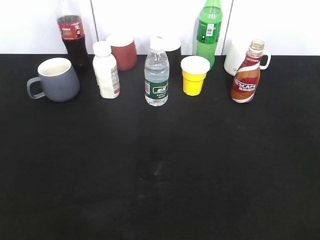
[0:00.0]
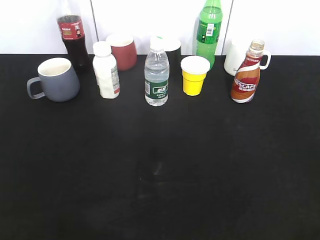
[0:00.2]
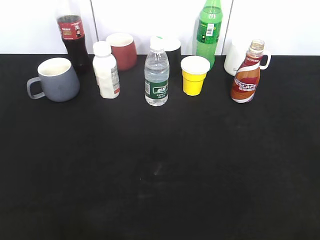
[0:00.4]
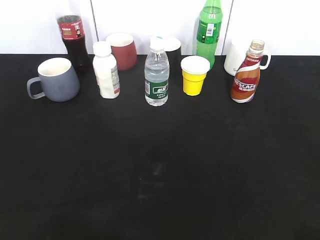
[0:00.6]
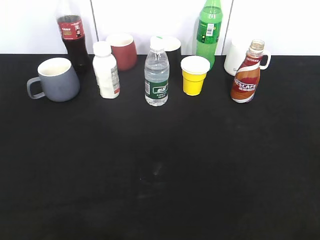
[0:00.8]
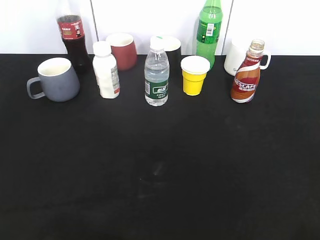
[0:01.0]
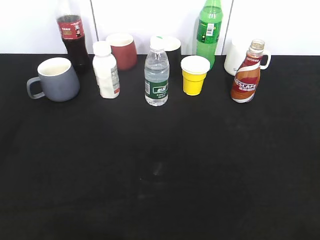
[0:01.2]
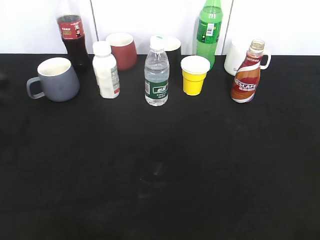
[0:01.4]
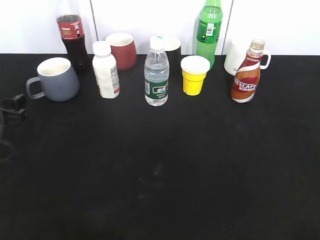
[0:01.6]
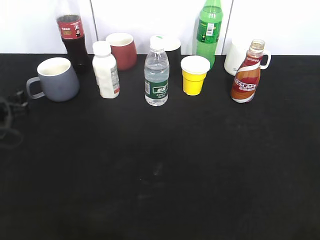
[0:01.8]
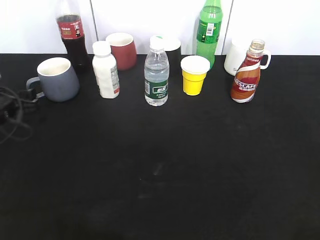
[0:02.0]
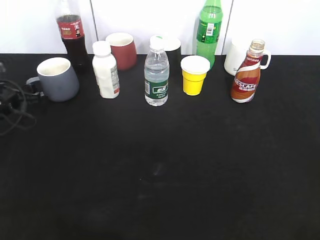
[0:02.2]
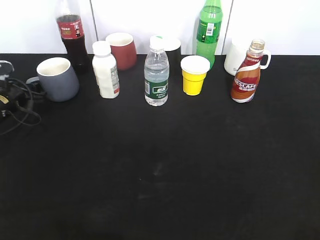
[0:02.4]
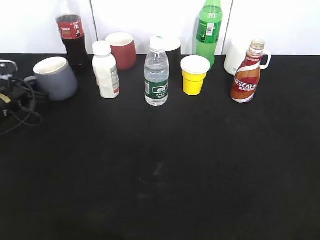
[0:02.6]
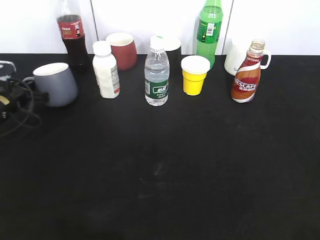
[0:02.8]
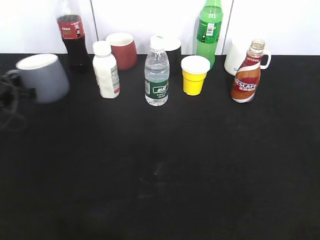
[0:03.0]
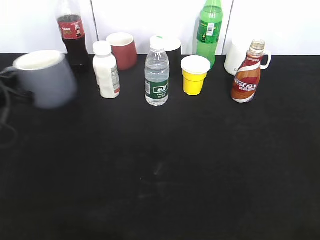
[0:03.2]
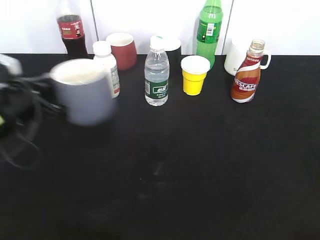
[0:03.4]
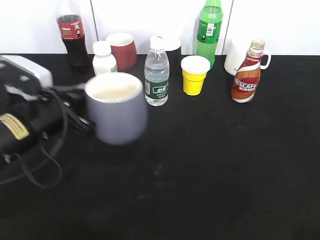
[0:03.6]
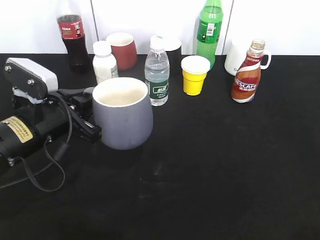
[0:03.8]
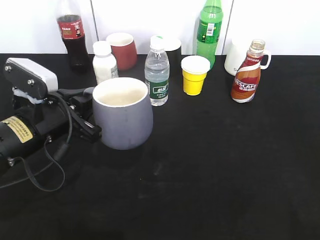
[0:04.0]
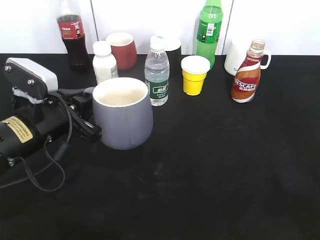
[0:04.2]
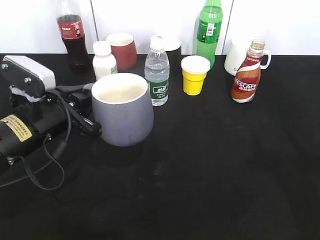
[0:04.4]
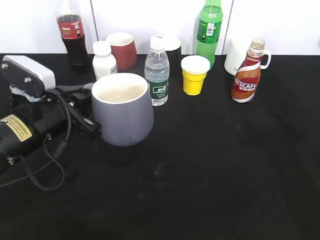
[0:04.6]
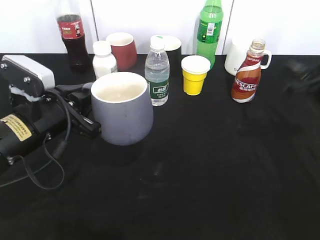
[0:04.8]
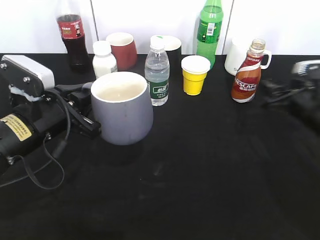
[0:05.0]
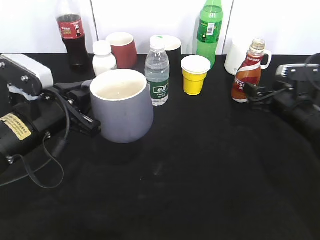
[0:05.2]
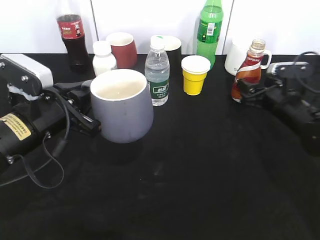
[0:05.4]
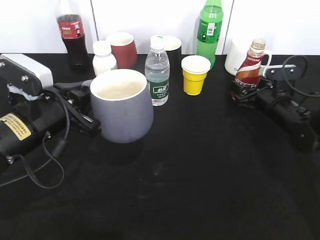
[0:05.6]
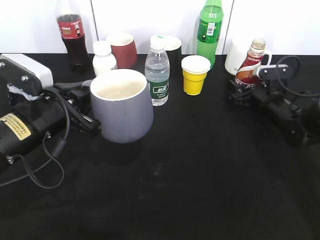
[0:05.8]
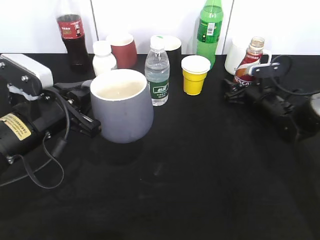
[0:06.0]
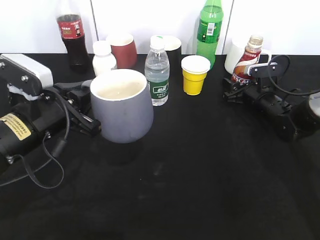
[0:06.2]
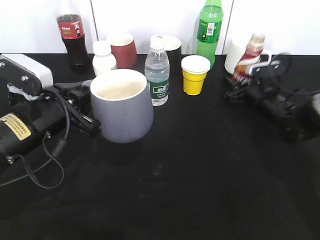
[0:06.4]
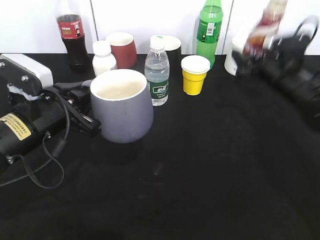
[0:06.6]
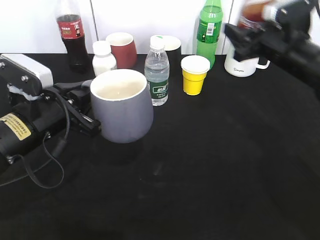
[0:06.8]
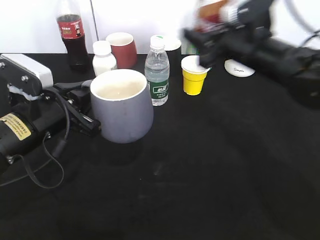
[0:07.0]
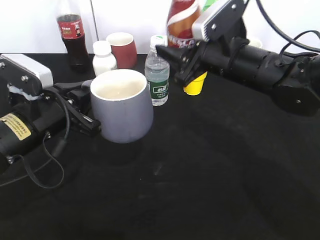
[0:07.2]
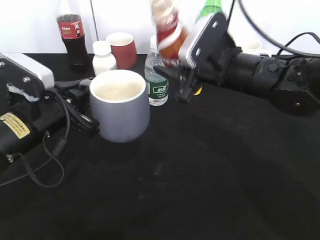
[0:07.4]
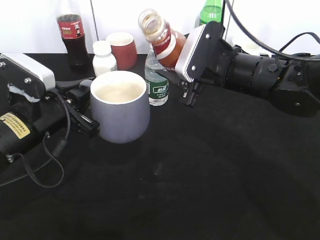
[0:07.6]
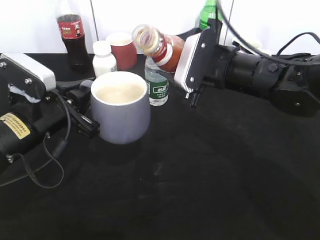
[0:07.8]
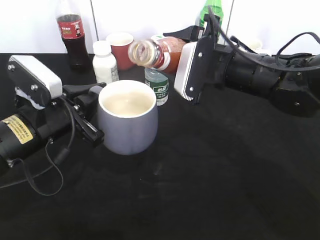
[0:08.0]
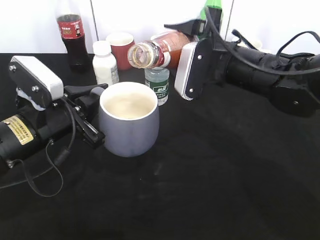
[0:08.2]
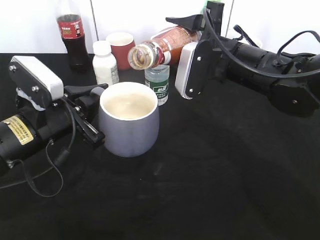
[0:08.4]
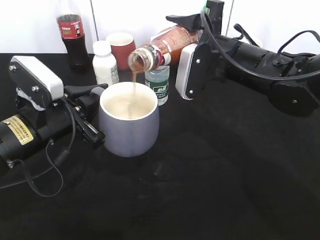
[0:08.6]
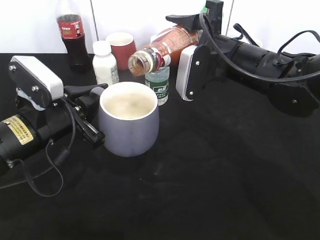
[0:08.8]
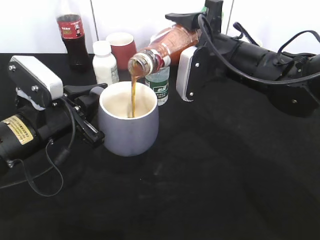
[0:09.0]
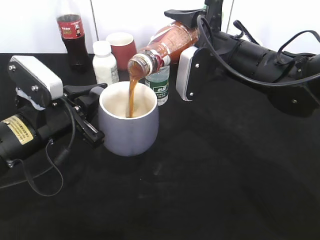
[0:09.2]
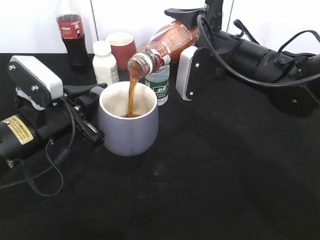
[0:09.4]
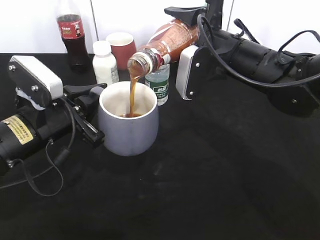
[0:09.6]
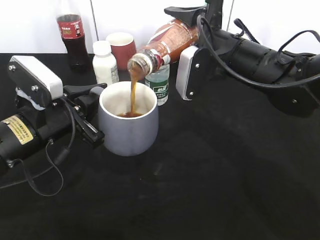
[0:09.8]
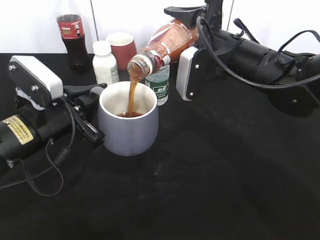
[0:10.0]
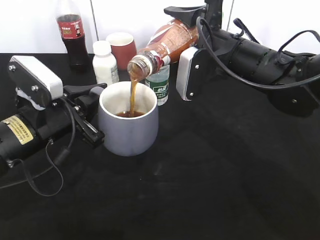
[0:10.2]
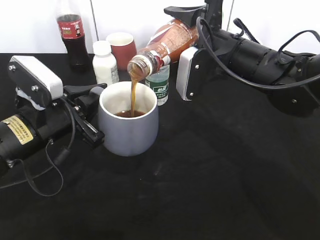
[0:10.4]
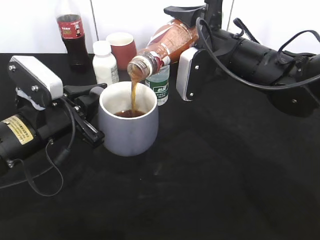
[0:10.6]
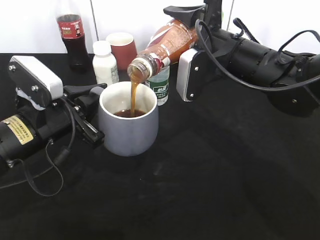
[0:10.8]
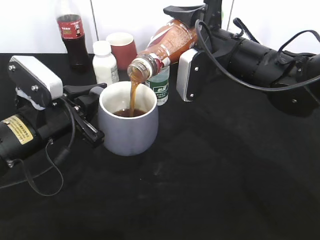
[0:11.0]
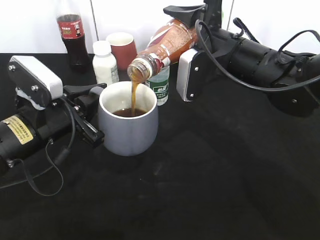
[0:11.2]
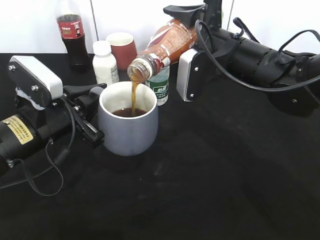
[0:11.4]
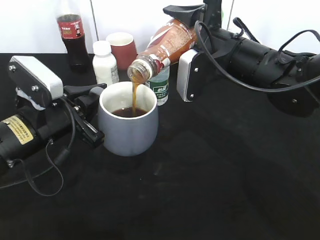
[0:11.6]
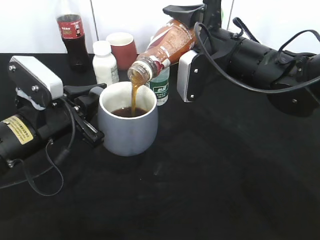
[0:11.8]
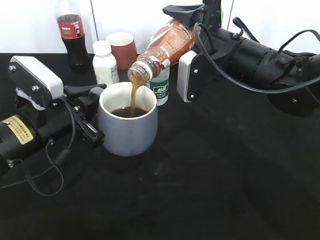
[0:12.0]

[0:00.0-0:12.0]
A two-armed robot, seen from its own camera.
Step, 3.0 to 4.4 s: Lift the grey cup with left gripper.
Step, 4.6 to 6.2 s: Grasp the bottle with coffee with right gripper.
0.0 to 1.6 s: The left gripper moves forward and downward, about 35 cm.
1.6 to 3.0 s: The left gripper travels forward by some 5 cm, and closes.
3.0 to 4.4 s: The right gripper heads forward, covering roughly 15 cm; the left gripper heads to the right and backward, covering about 20 cm.
4.4 to 6.0 s: The right gripper heads forward and downward, covering some 40 cm.
6.0 to 7.6 s: The right gripper shifts about 25 cm upward, to the left and backward, and closes.
9.0 to 12.0 s: The grippers move only a little.

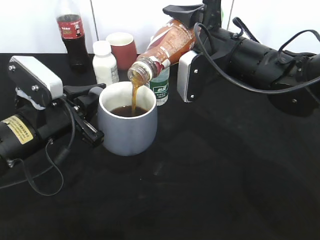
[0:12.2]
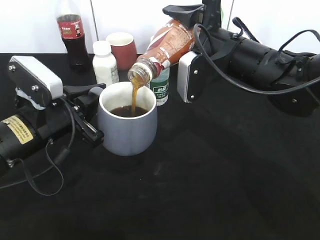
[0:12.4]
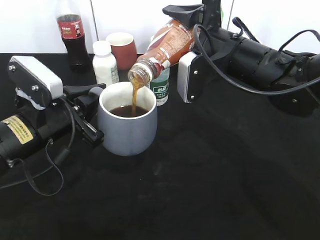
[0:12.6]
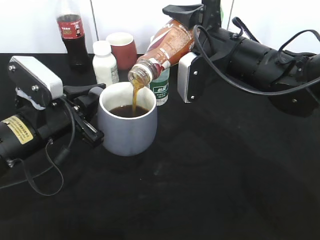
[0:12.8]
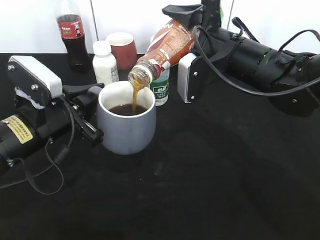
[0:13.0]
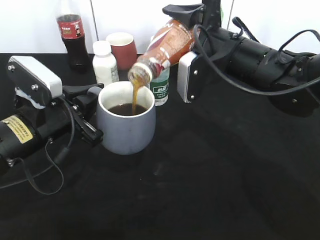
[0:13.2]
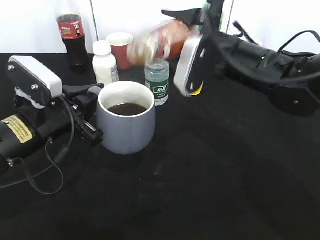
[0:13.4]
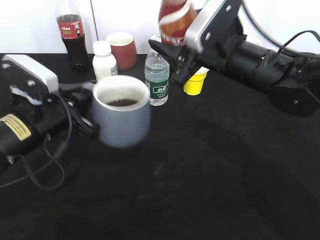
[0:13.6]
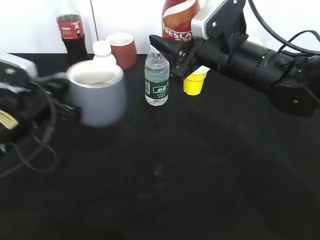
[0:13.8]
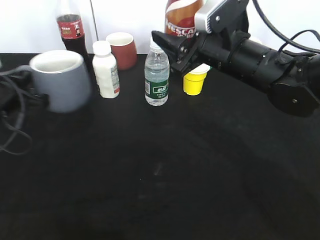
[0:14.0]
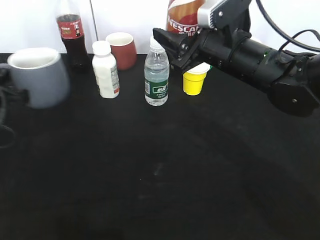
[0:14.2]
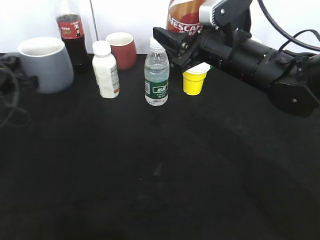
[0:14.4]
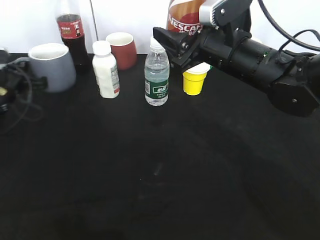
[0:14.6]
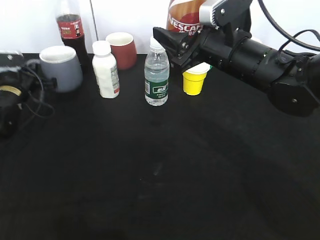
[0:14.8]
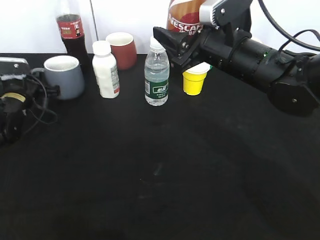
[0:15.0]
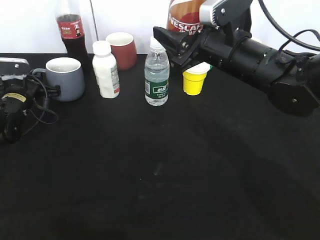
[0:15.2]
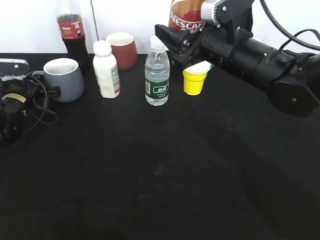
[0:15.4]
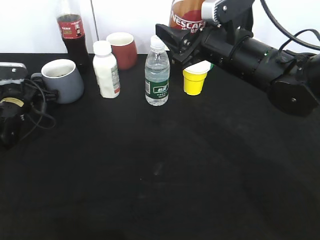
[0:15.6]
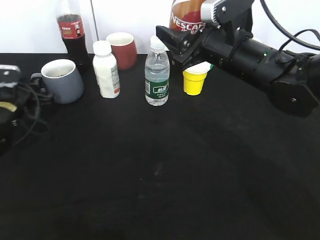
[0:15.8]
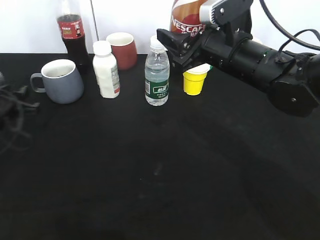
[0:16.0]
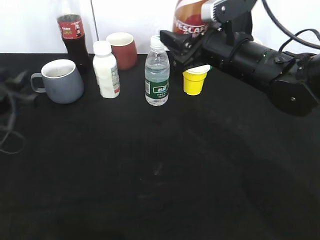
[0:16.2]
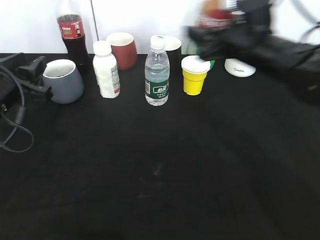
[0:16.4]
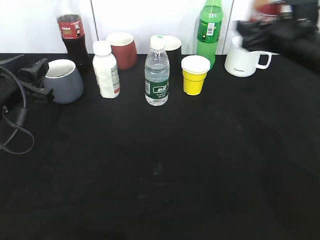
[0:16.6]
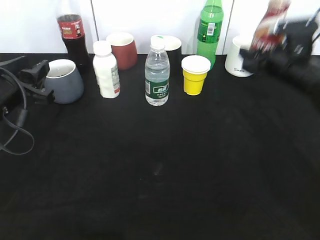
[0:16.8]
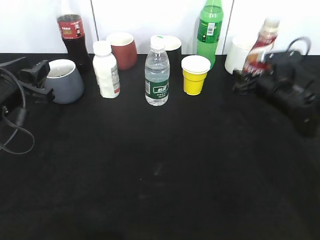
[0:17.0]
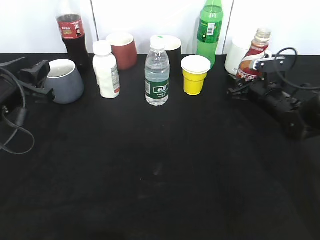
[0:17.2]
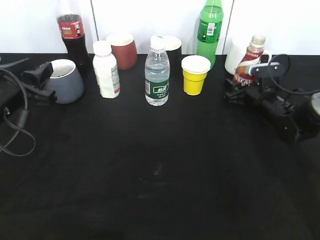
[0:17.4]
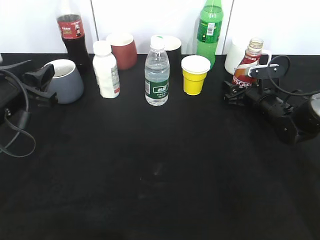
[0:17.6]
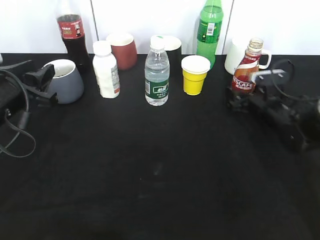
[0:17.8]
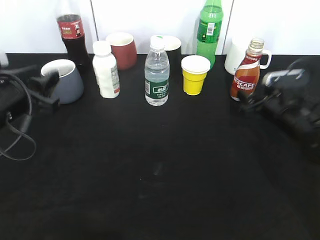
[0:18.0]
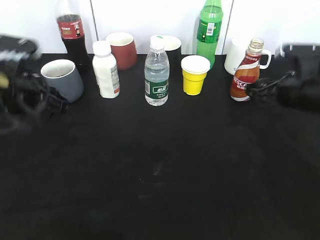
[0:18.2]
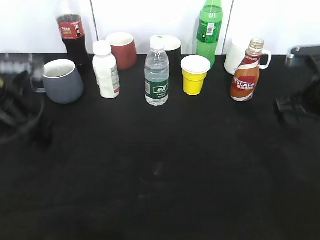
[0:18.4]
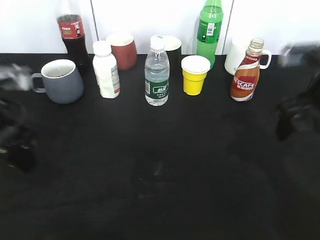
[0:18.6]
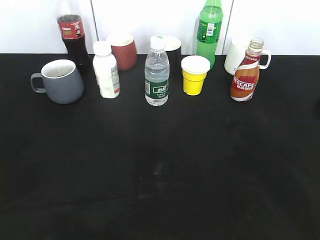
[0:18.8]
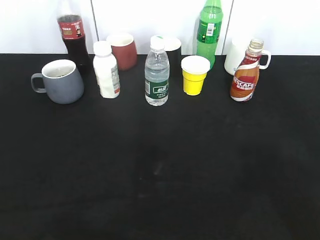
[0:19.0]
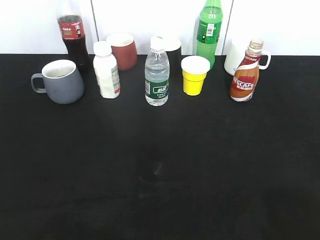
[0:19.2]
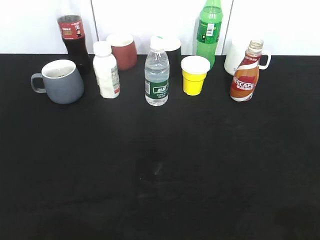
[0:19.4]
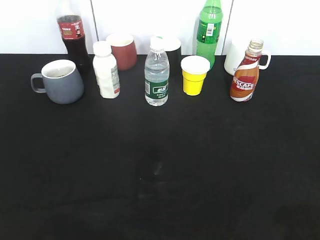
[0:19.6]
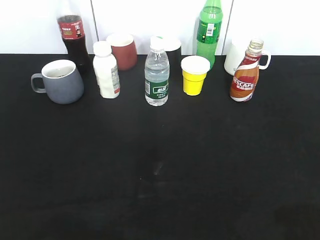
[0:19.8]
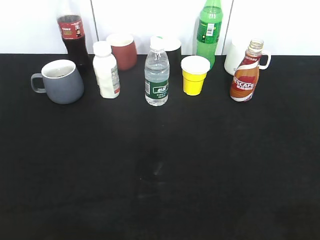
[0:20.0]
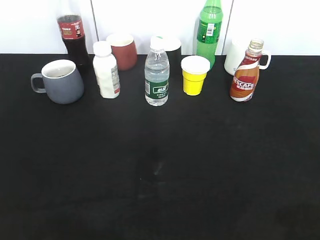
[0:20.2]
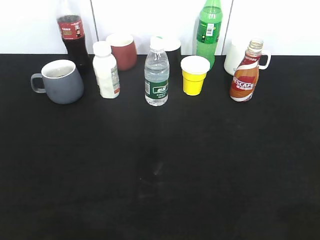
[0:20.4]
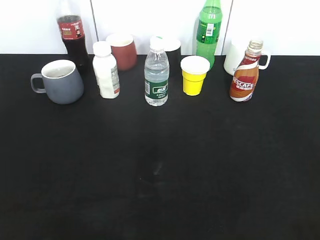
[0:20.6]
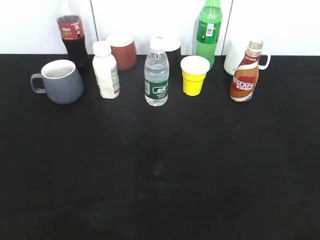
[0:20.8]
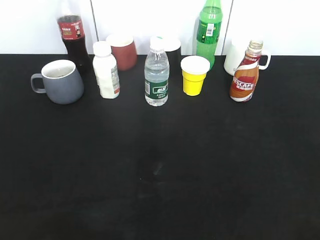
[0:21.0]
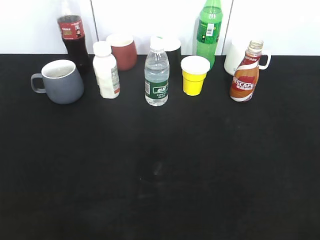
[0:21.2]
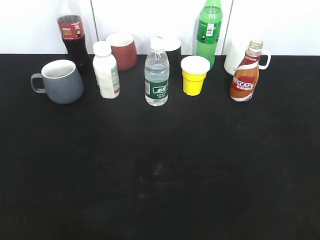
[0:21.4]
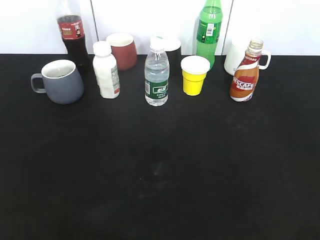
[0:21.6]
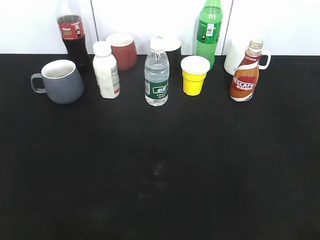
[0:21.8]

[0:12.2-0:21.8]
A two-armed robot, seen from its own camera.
Step, 13.6 to 15.6 s: Place the grey cup on the table with left gripper.
Step, 15.8 to 17.6 s: Place the coffee bottle on the table with right gripper.
13.8 to 15.4 s: The left gripper is displaced forward, downward and to the left by some 20 cm.
15.4 to 17.0 s: The left gripper is displaced backward and upward by roughly 20 cm. Meanwhile the right gripper is displaced downward, to the right and forward by approximately 20 cm.
17.0 to 18.6 s: The right gripper is displaced upward and backward by about 20 cm, and opens, then closes once more, while the left gripper shifts by some 5 cm.
18.6 to 20.2 s: The left gripper shifts roughly 20 cm backward and to the left. The right gripper shifts some 25 cm backward.

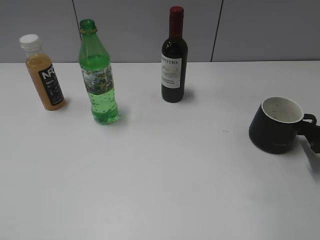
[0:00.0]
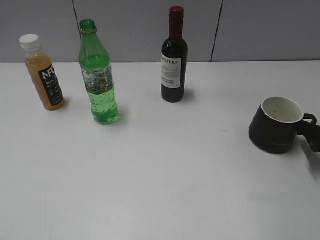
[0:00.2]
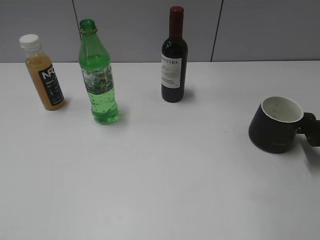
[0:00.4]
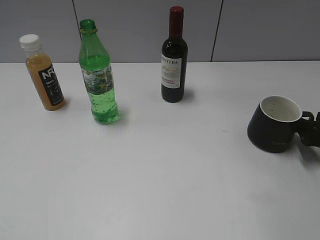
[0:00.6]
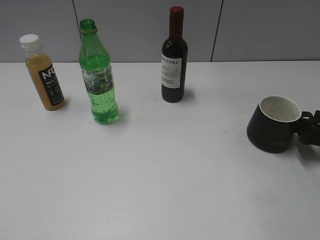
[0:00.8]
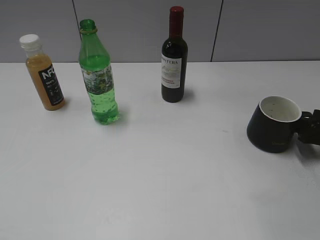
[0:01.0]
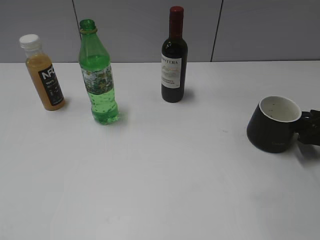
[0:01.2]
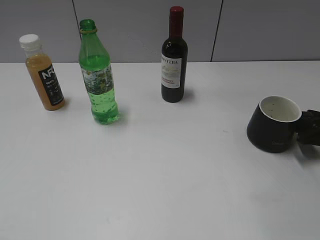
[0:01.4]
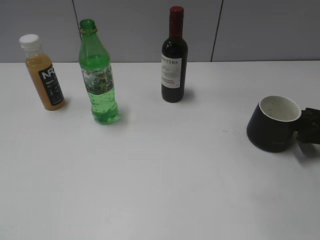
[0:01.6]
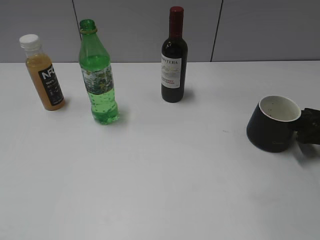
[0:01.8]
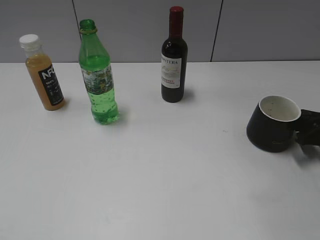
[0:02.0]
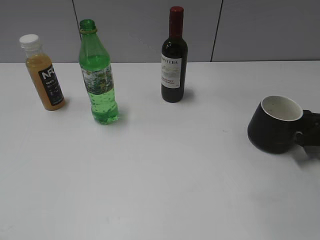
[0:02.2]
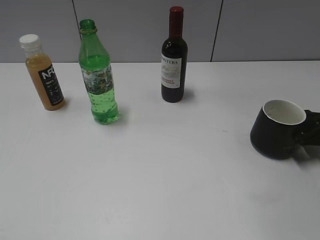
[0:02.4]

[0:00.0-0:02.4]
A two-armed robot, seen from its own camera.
0.0 to 1.2 s: The grippers make only small movements.
1.2 to 2.4 s: The right gripper closes up.
